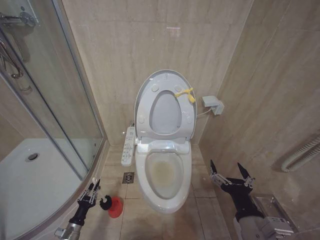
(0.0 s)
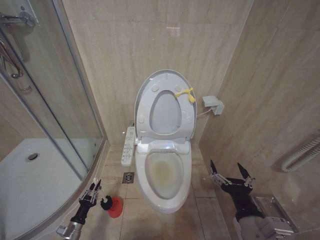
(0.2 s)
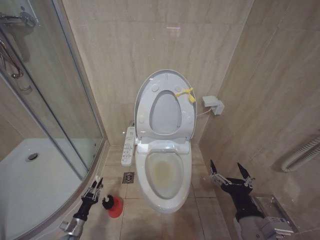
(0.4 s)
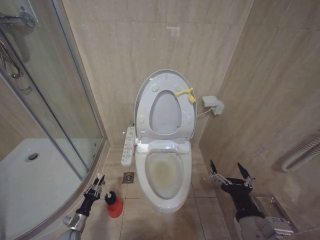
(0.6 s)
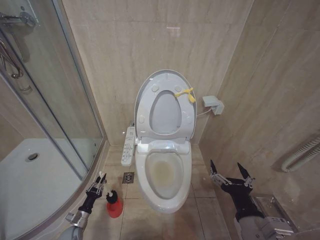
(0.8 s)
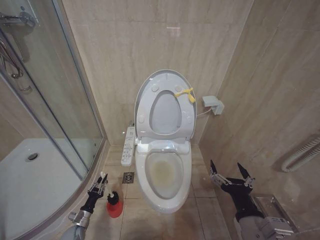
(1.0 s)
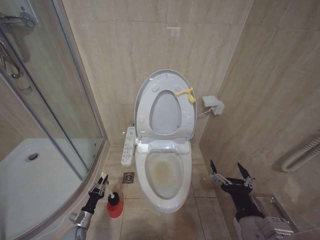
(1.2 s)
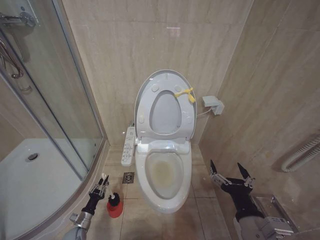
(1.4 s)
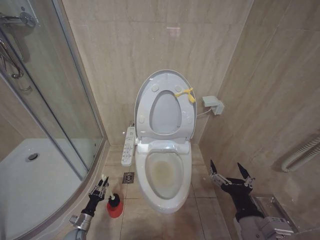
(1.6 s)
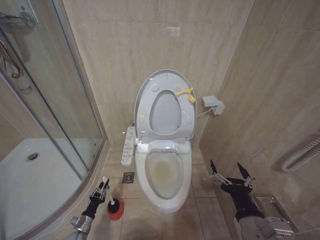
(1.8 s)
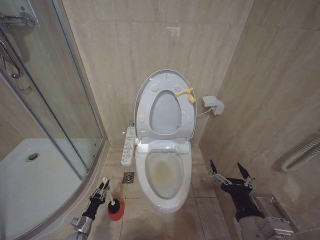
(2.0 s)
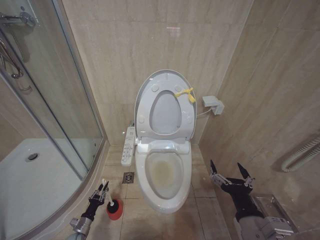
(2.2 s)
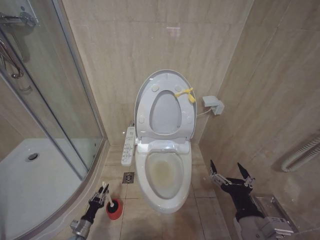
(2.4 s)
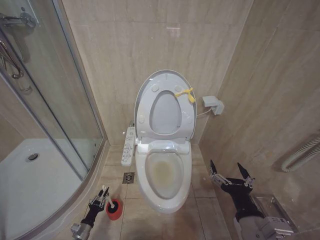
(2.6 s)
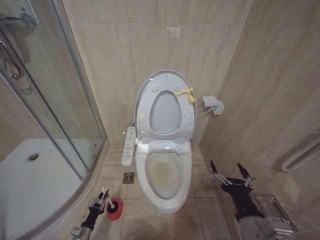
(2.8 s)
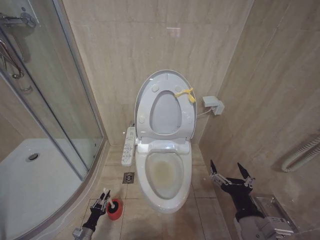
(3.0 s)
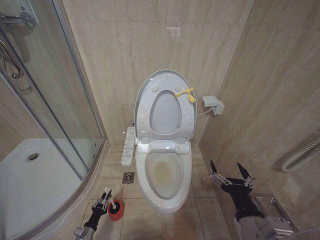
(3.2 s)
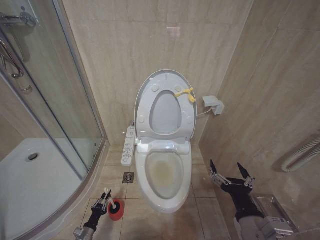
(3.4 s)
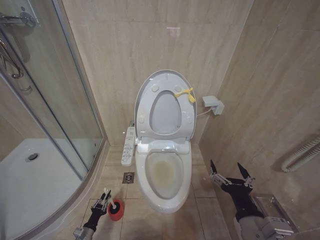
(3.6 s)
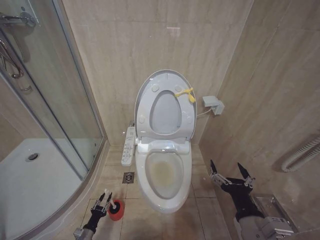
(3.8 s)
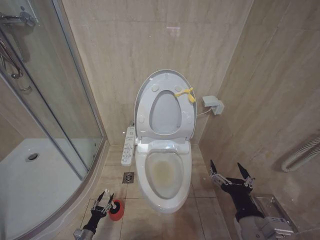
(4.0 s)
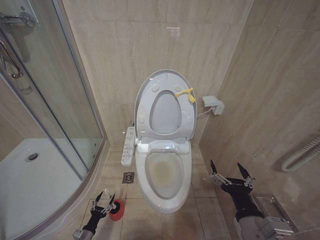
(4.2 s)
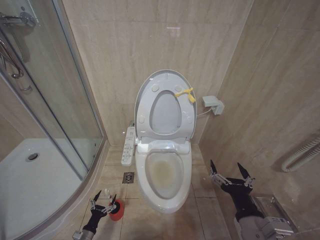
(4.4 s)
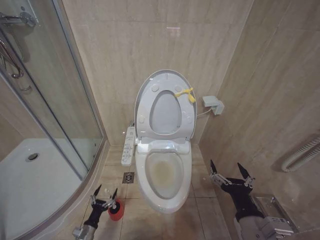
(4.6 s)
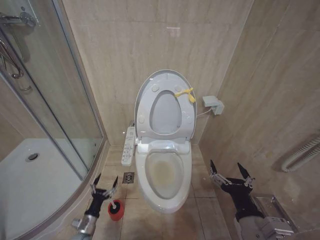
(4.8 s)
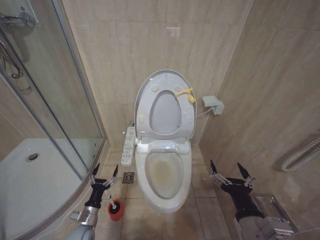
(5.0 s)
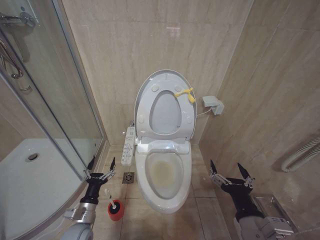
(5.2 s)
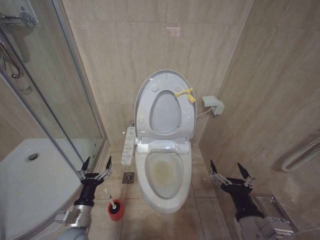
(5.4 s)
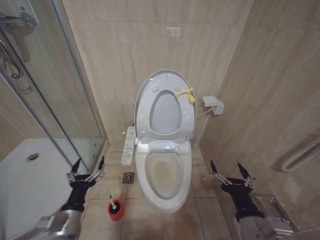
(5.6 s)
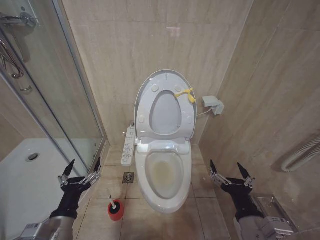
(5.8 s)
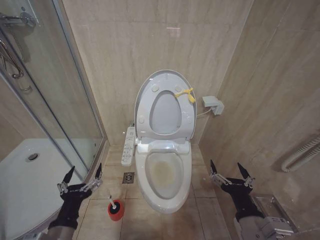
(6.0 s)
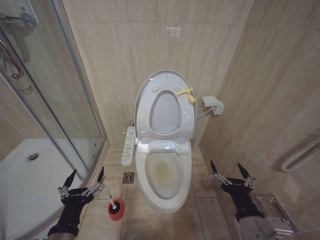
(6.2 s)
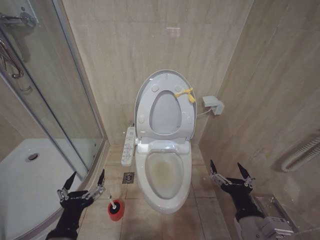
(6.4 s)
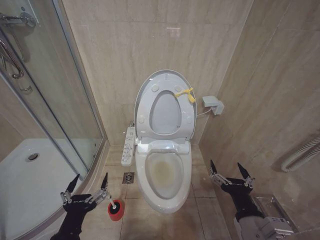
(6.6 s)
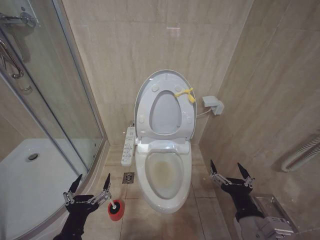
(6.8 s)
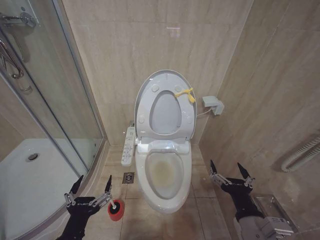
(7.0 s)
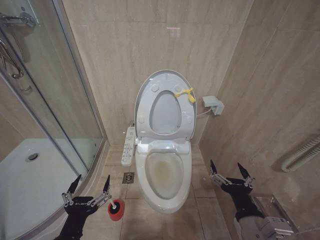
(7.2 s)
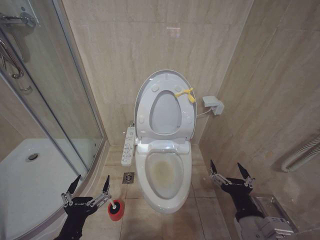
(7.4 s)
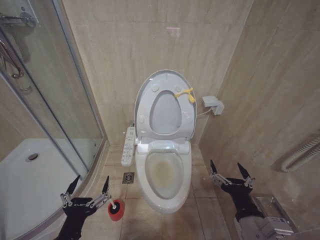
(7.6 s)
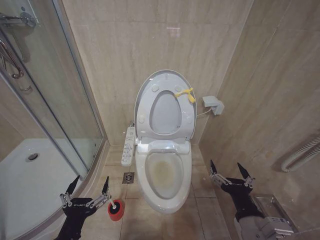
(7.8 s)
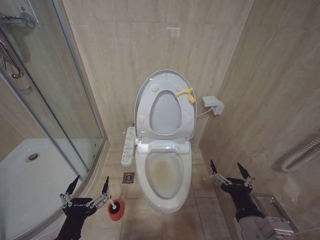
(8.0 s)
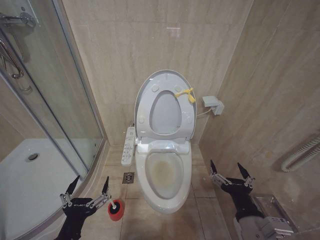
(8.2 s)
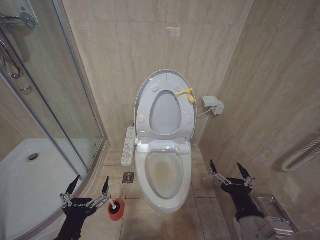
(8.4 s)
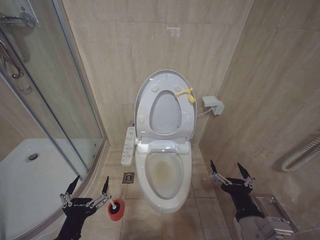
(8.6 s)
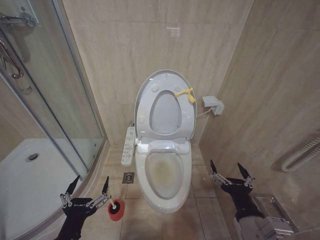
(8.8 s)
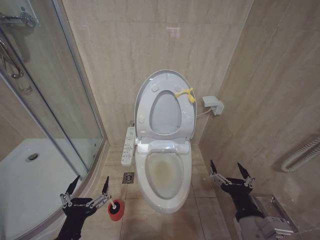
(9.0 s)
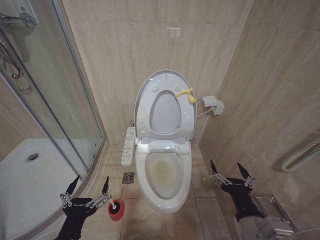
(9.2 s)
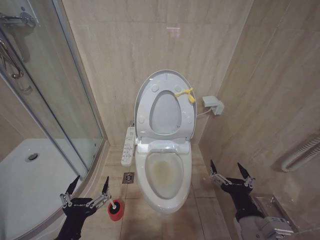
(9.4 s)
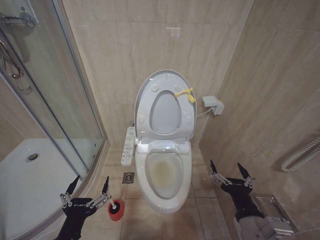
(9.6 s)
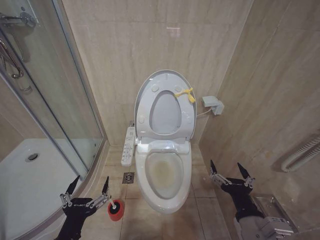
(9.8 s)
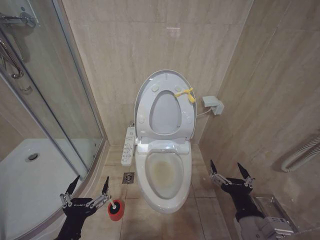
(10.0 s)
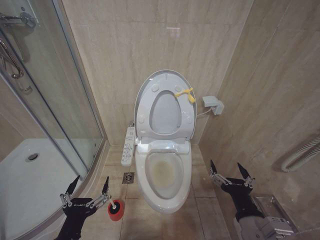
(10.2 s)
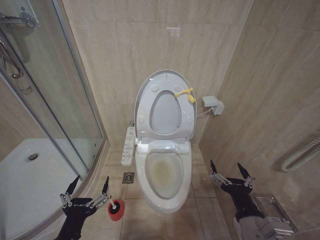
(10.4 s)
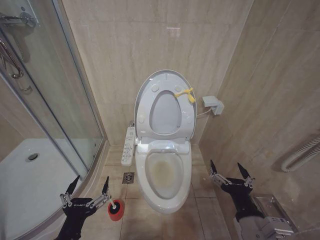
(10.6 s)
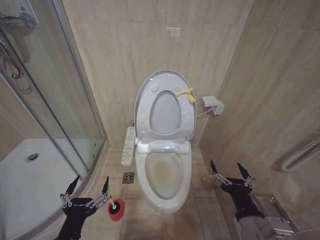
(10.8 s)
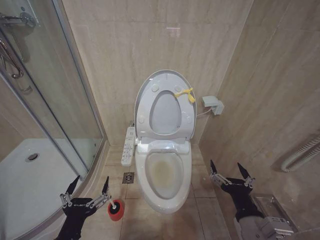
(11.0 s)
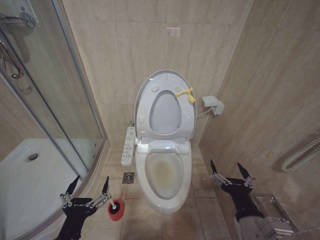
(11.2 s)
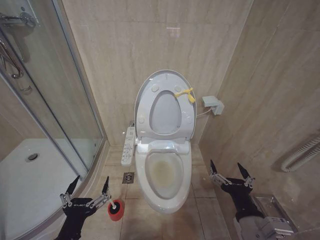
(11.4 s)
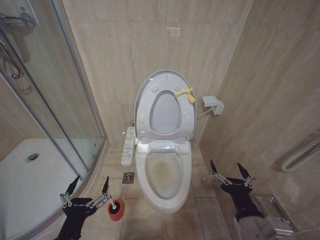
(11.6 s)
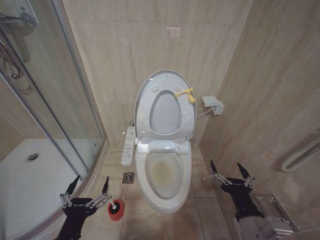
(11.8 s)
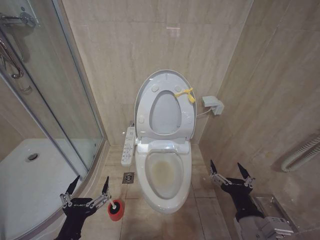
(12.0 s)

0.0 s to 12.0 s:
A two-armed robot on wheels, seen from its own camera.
Task of the whole recording: Open the toilet lid, clean the toilet bowl with a toilet brush, close the toilet lid, and flush.
0.0 to 1.6 s: The left gripper travels forward by approximately 5 cm.
1.6 to 3.0 s: The left gripper changes place by some 5 cm.
3.0 to 4.4 s: The left gripper opens its fingers.
4.4 to 6.0 s: The left gripper goes roughly 40 cm upward.
6.0 to 7.6 s: The left gripper shifts by about 5 cm.
7.6 to 12.0 s: Both grippers stay about where they are.

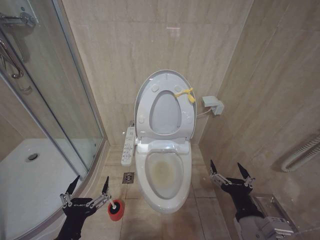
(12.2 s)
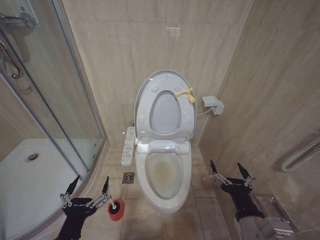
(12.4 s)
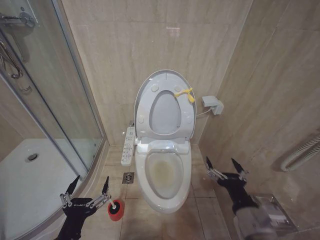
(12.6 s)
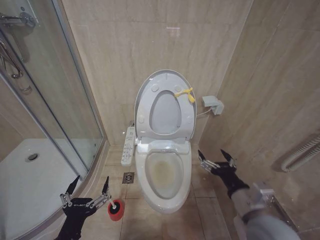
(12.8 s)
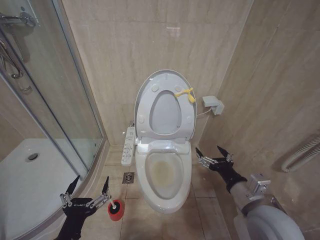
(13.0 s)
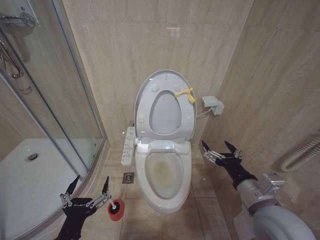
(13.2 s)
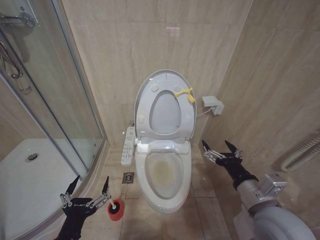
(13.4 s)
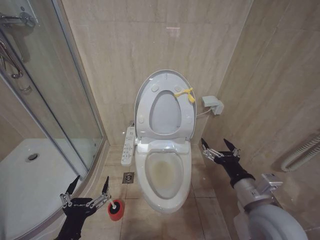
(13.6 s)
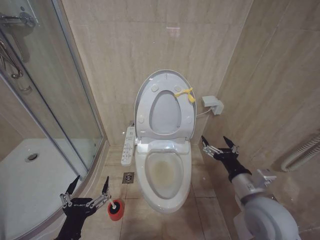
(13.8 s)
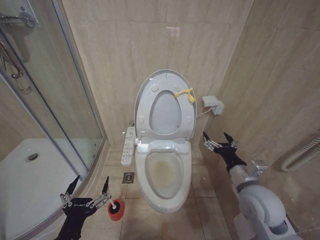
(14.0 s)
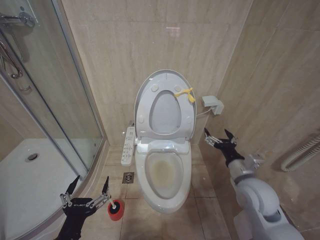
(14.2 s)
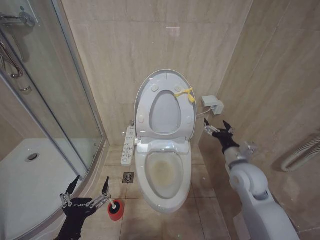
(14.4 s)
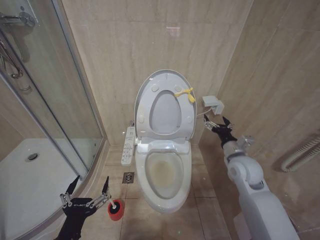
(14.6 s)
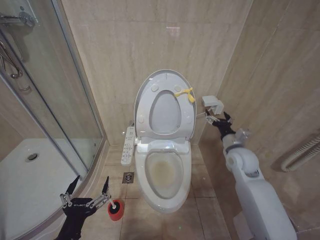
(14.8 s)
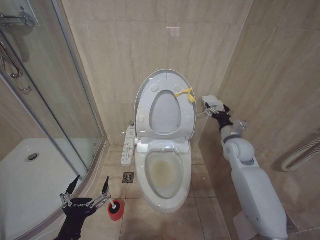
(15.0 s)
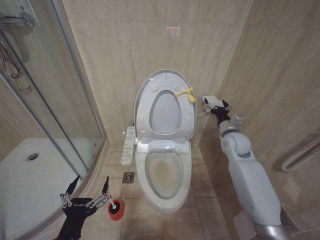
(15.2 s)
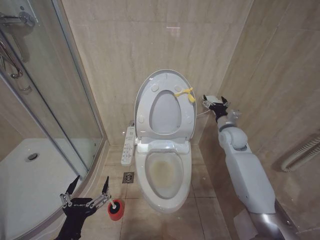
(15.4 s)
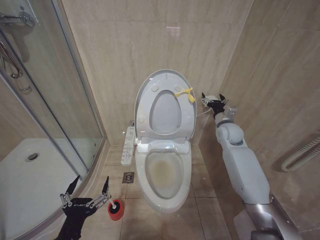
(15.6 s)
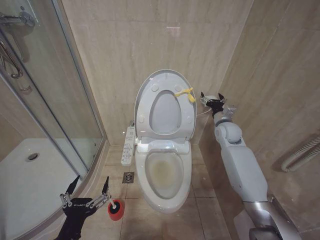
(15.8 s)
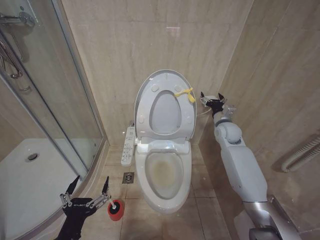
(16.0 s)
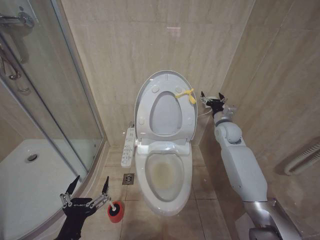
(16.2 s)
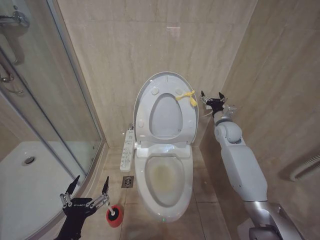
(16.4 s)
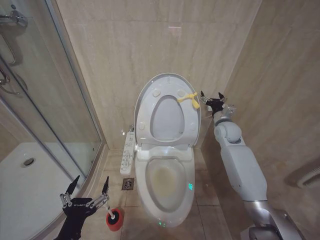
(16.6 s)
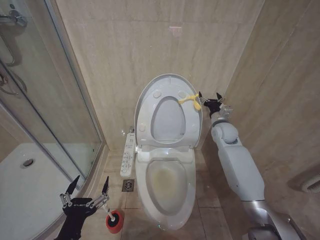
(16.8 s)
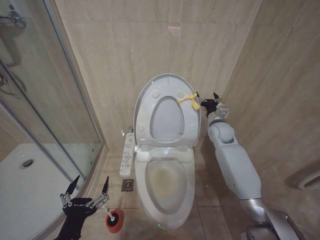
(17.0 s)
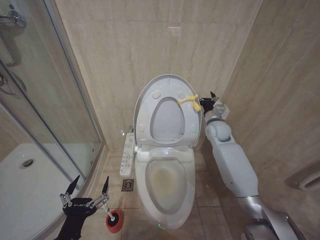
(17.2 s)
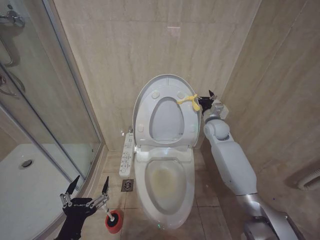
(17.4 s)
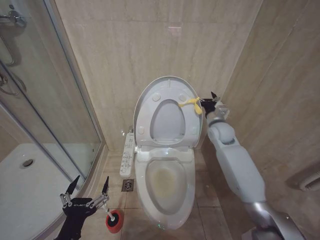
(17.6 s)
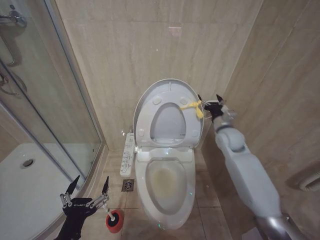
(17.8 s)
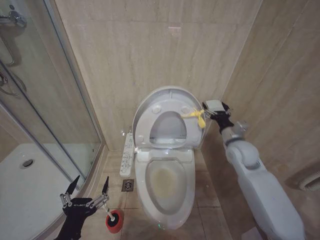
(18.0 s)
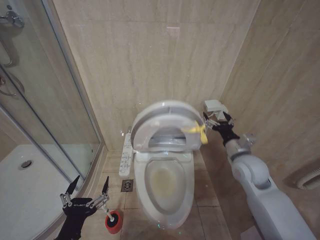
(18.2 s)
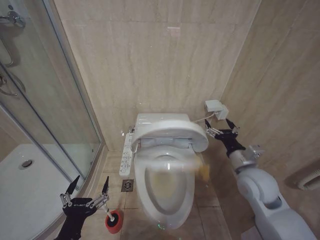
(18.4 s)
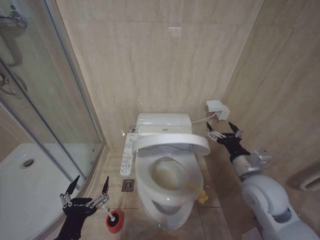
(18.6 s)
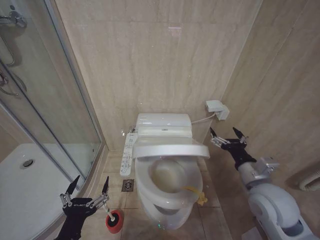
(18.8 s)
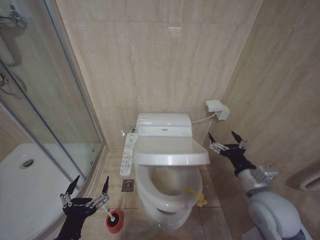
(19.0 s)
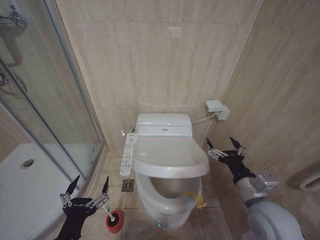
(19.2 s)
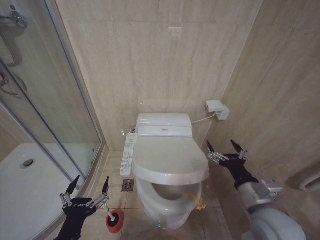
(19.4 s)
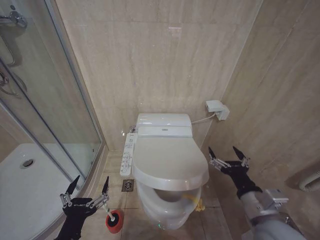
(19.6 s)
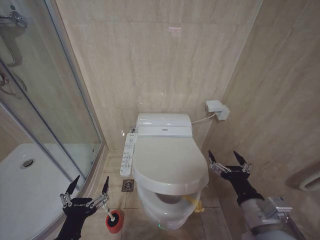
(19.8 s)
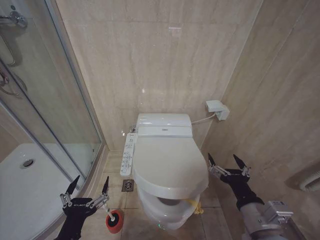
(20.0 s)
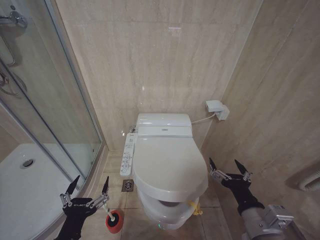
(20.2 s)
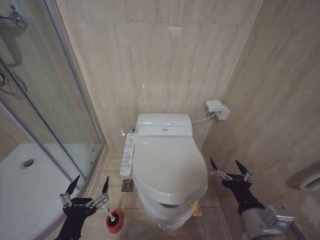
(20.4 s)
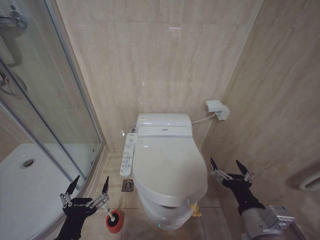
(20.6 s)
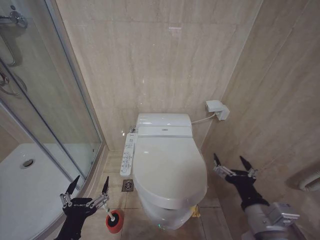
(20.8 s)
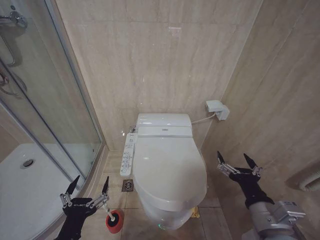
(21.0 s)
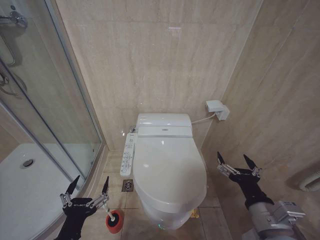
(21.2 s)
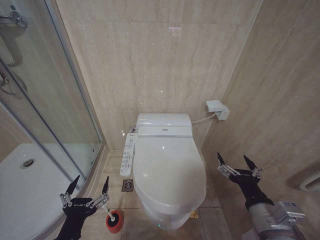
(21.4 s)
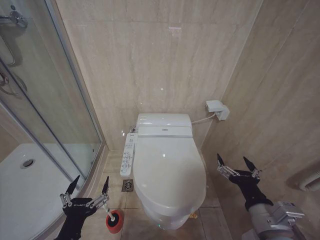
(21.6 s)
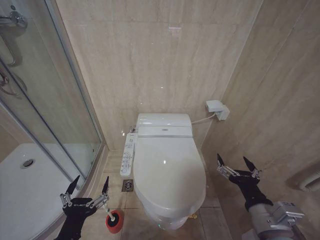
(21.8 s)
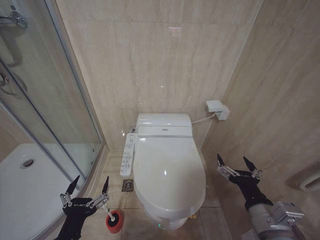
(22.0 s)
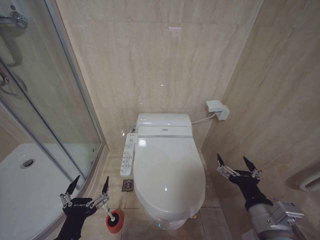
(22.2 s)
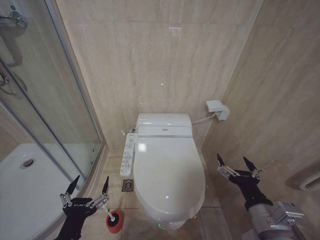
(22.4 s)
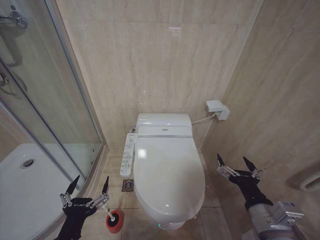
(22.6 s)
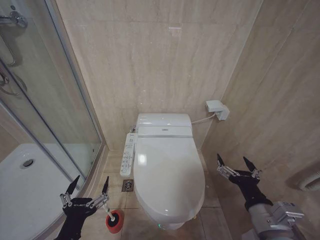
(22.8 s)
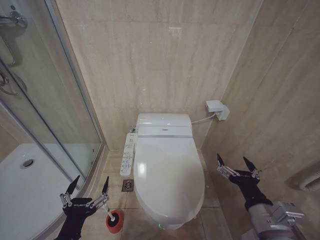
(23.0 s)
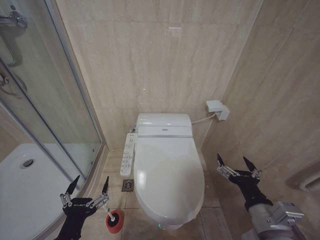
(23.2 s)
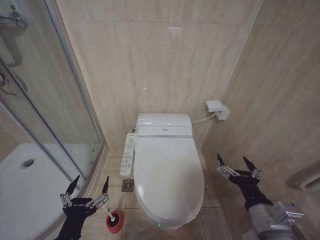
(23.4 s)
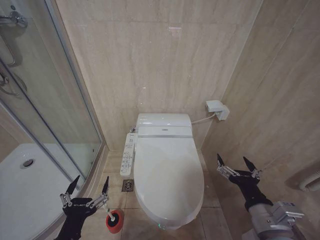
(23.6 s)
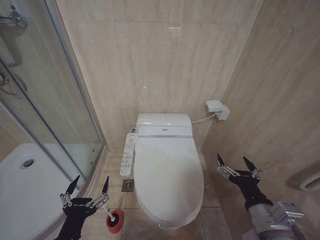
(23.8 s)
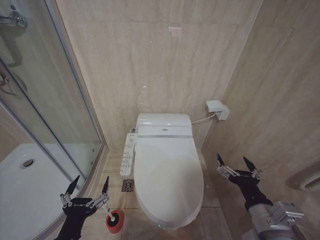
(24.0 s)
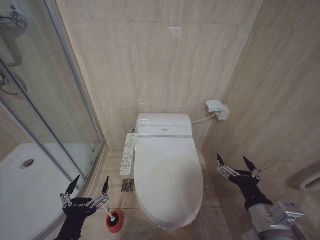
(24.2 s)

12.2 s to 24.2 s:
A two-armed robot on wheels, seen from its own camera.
Task of the whole recording: Open the toilet lid, clean the toilet bowl with a toilet brush, close the toilet lid, and flush.
12.2 to 13.8 s: The right gripper goes some 10 cm forward.
13.8 to 15.2 s: The right gripper goes about 25 cm forward.
15.2 to 16.6 s: The right gripper goes about 5 cm forward.
16.6 to 18.2 s: The right gripper travels backward by roughly 15 cm.
18.2 to 19.8 s: The right gripper moves backward, some 20 cm.
19.8 to 21.2 s: The grippers move only a little.
21.2 to 24.2 s: The two grippers keep their place.
